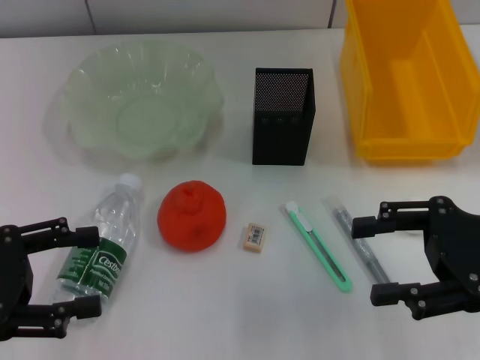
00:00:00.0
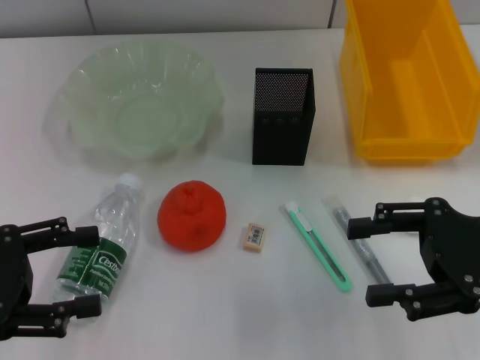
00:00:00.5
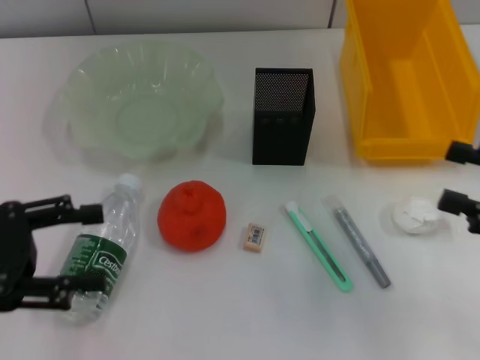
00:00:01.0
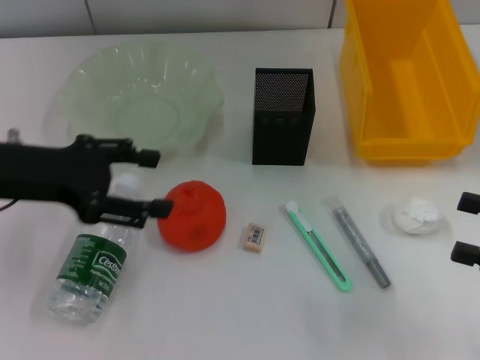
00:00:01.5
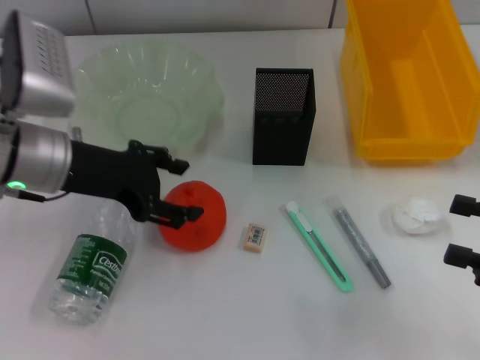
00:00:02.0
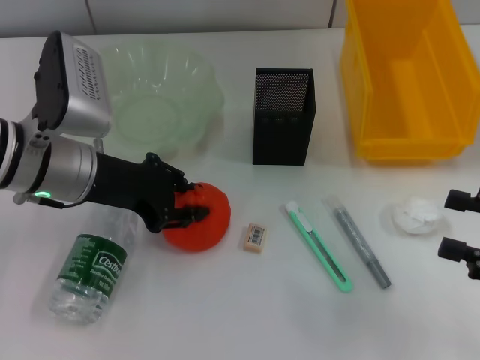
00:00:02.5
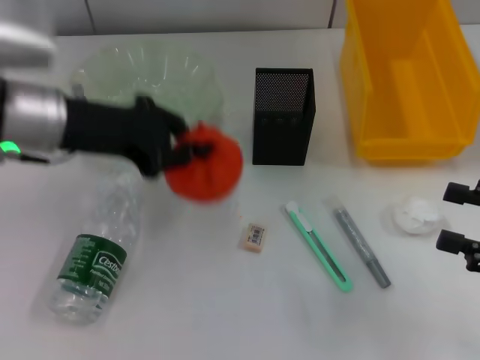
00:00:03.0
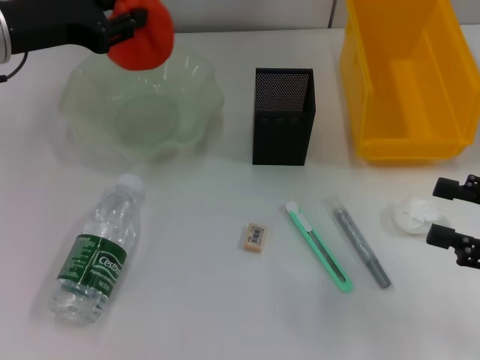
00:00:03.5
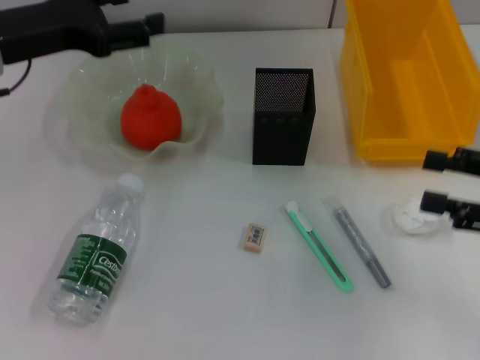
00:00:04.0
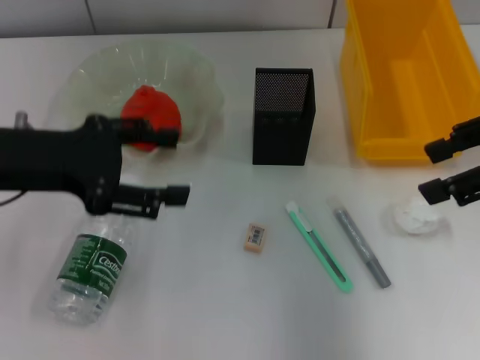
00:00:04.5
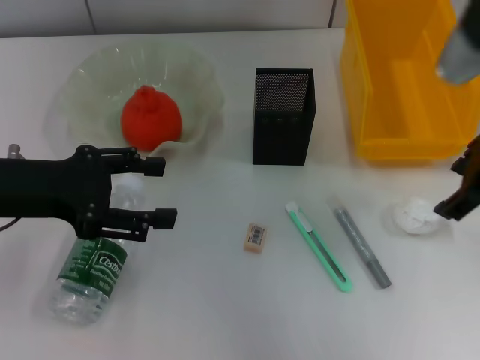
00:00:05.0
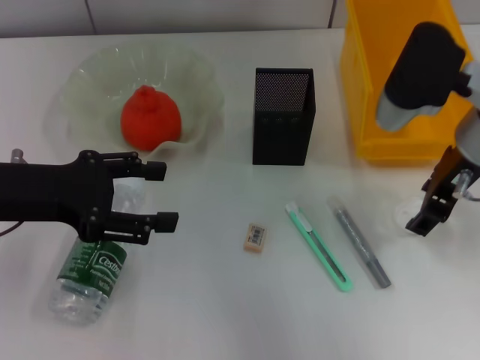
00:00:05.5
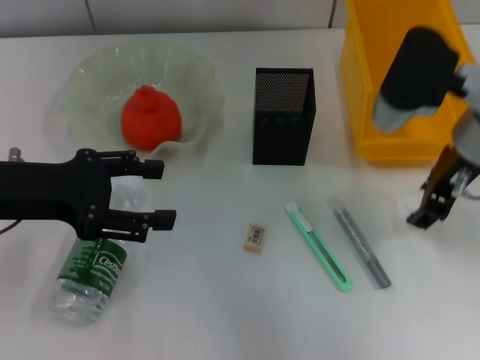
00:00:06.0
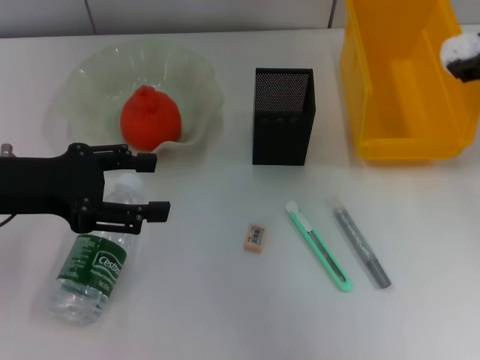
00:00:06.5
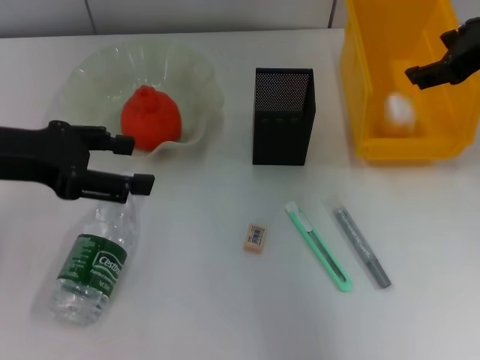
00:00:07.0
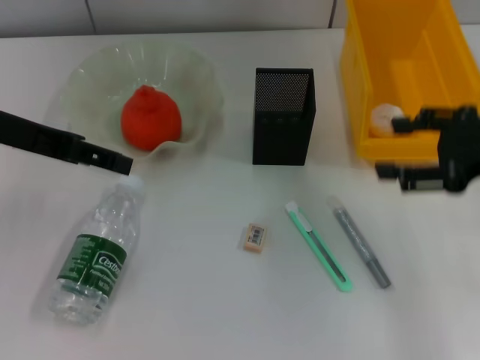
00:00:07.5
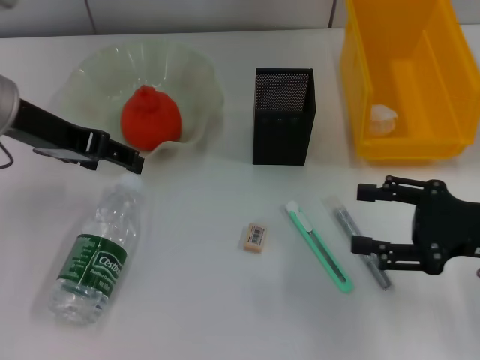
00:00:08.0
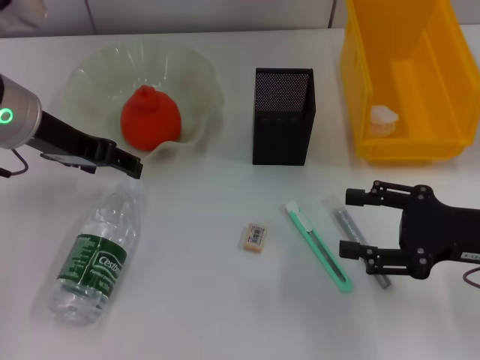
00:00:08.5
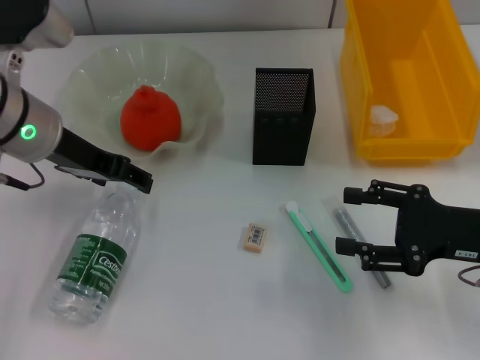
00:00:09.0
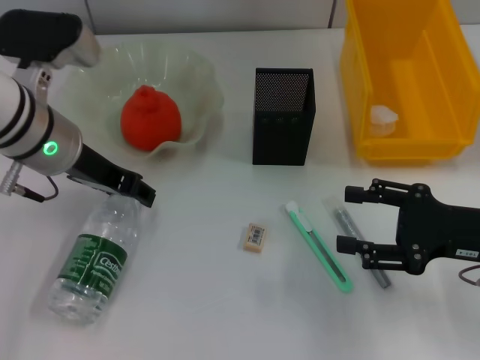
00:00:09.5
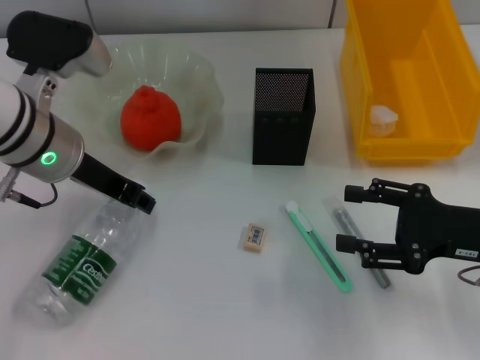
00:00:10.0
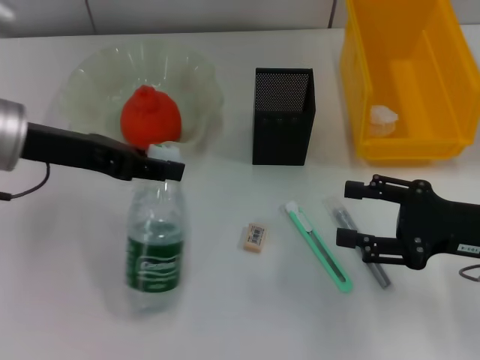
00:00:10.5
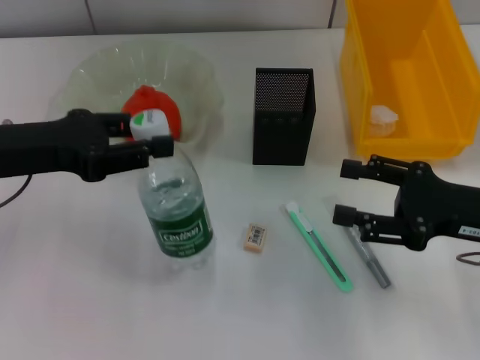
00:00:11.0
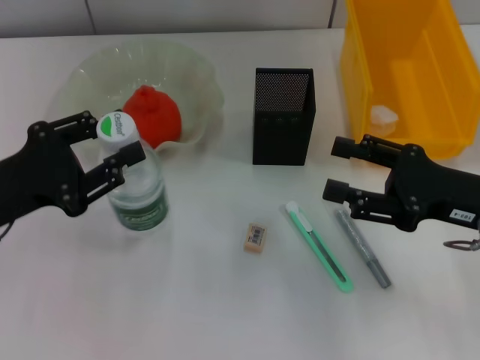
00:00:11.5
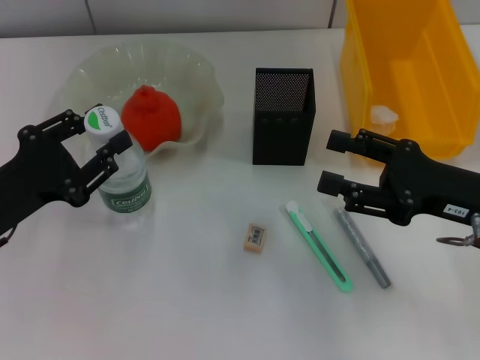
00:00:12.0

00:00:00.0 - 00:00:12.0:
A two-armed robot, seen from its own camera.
Step, 00:00:00.0 - 00:00:02.5: Grab the orange with the left hand.
Step, 00:00:03.0 - 00:00:04.0: Place the orange into the fruit bowl with the left hand.
Step, 00:00:04.5 - 00:00:05.5: Grab the paper ball with the right hand.
Step, 00:00:06.0 - 00:00:07.0: Place the paper ball into the trash can with the right hand.
Step, 00:00:07.5 - 00:00:09.5: Grab the water bottle with the left hand.
00:00:00.0 - 00:00:02.0: The right gripper moves to the right and backward, about 10 cm, while the left gripper goes some 15 cm forward and to the right.
00:00:02.0 - 00:00:04.0: The right gripper shifts by some 5 cm. The left gripper heads upward, covering about 5 cm, and closes and opens again.
00:00:04.0 - 00:00:06.0: The left gripper heads backward, covering about 10 cm; the right gripper goes approximately 20 cm to the left and forward.
00:00:06.0 - 00:00:08.0: The right gripper travels to the right, backward and downward by about 15 cm, while the left gripper heads forward and upward, covering about 10 cm.
00:00:08.0 - 00:00:10.0: The left gripper moves approximately 5 cm, and closes its fingers.
00:00:10.0 - 00:00:12.0: The left gripper is displaced backward, to the left and downward by roughly 15 cm.

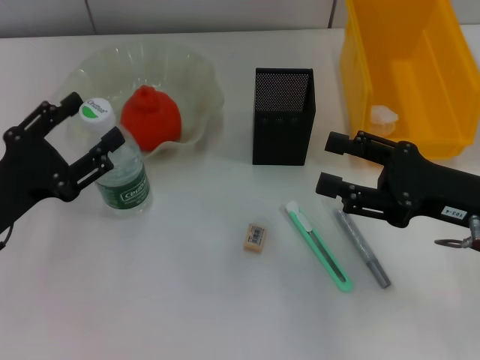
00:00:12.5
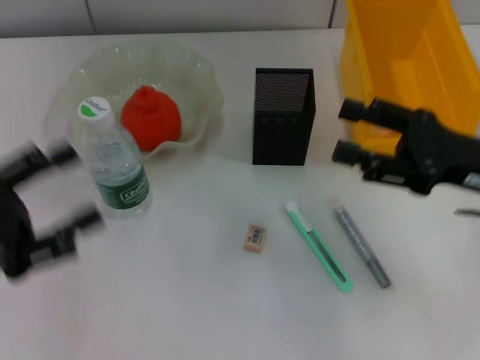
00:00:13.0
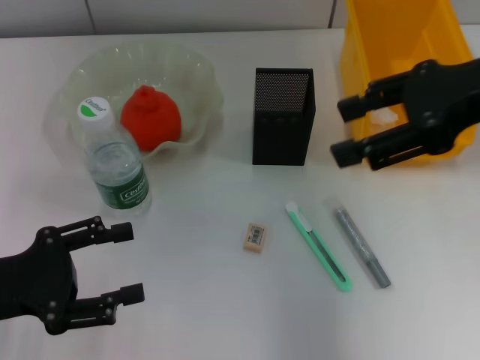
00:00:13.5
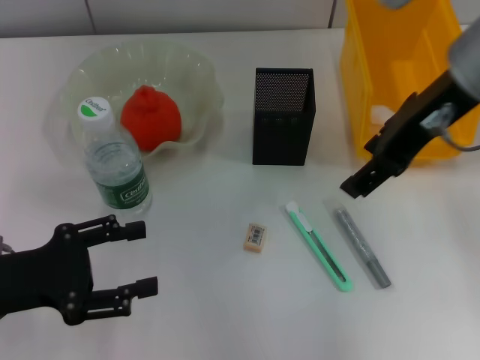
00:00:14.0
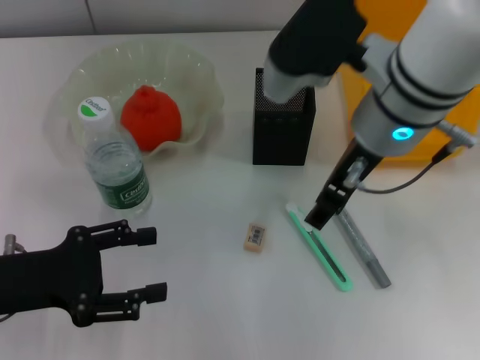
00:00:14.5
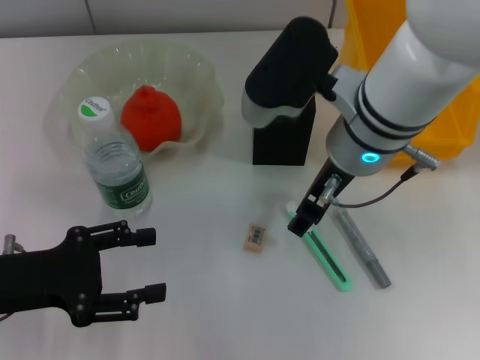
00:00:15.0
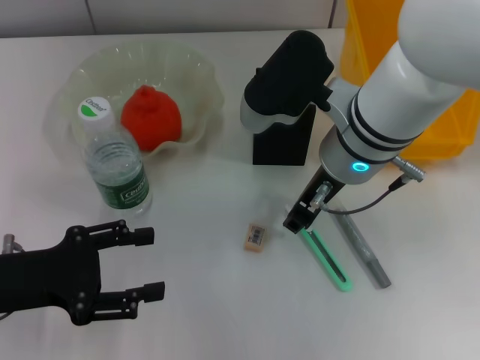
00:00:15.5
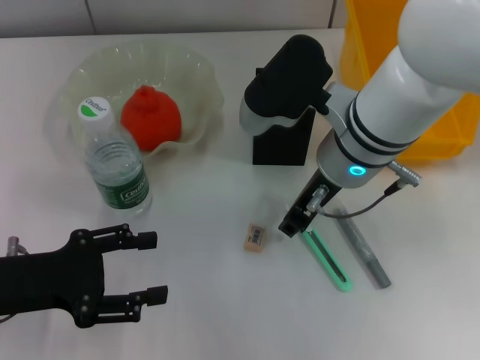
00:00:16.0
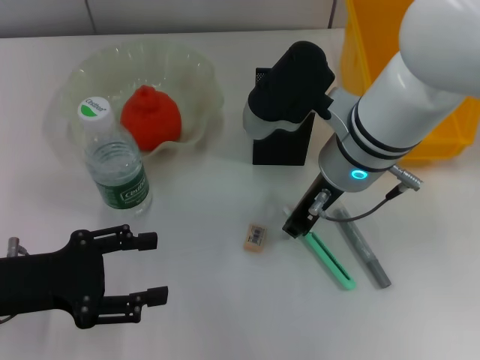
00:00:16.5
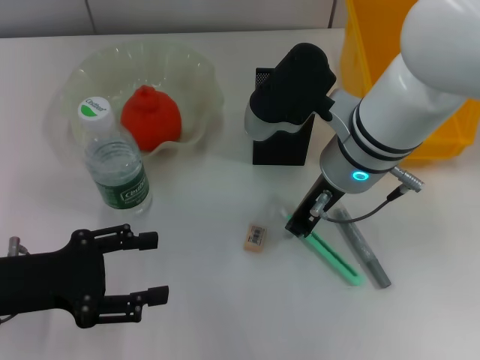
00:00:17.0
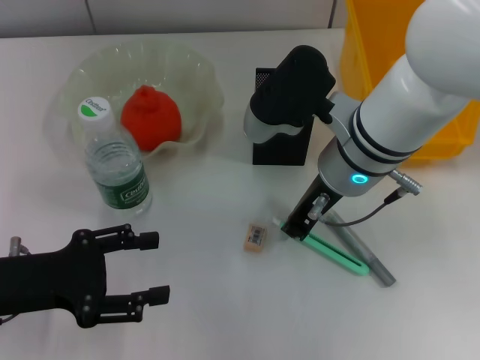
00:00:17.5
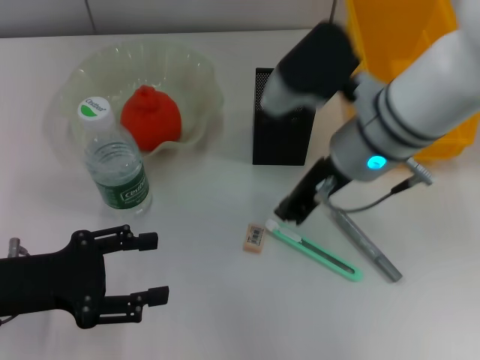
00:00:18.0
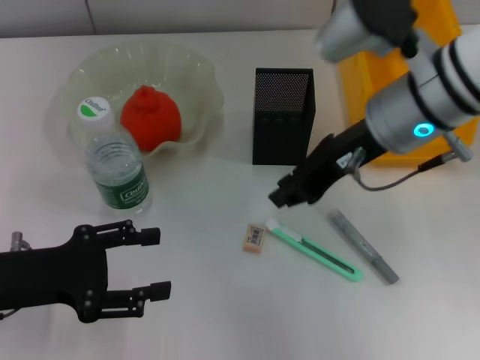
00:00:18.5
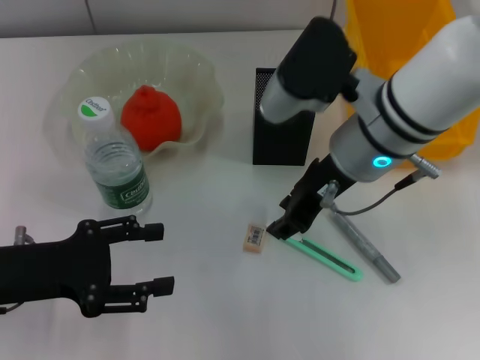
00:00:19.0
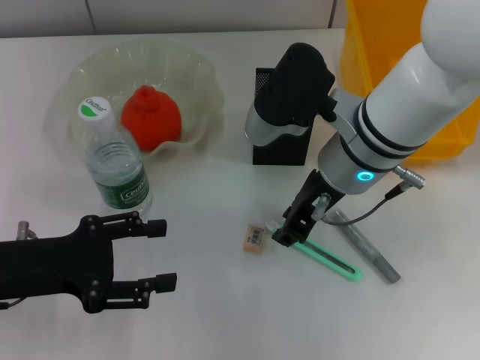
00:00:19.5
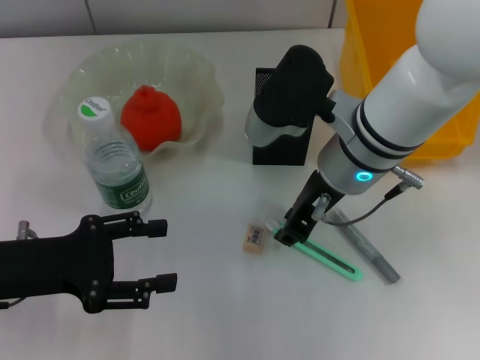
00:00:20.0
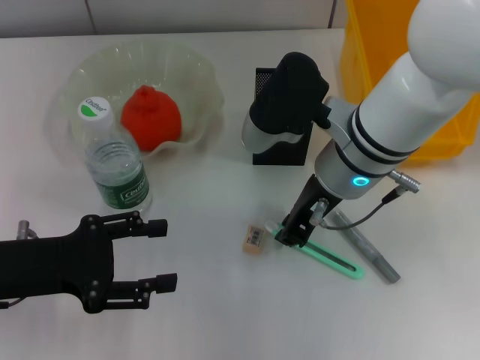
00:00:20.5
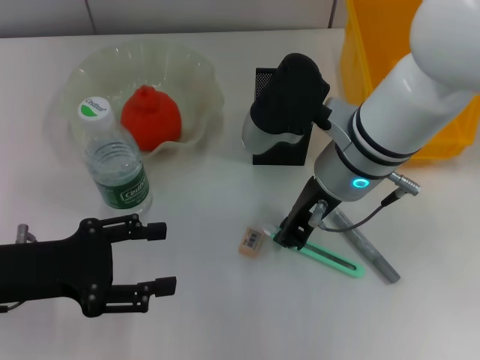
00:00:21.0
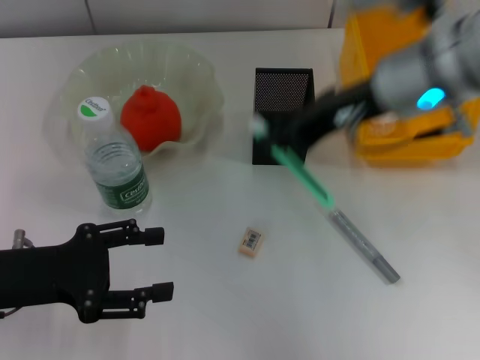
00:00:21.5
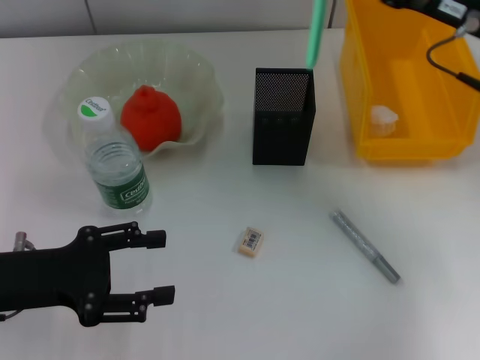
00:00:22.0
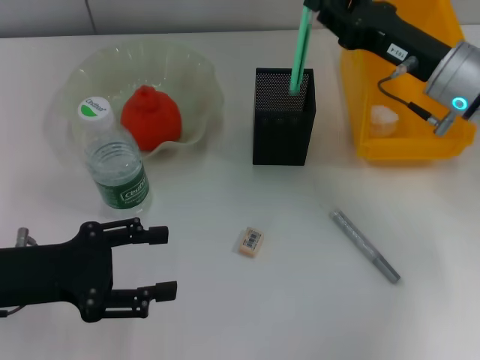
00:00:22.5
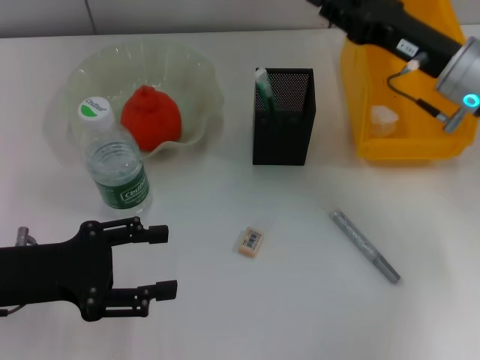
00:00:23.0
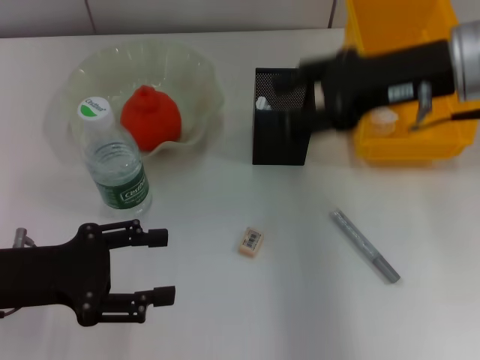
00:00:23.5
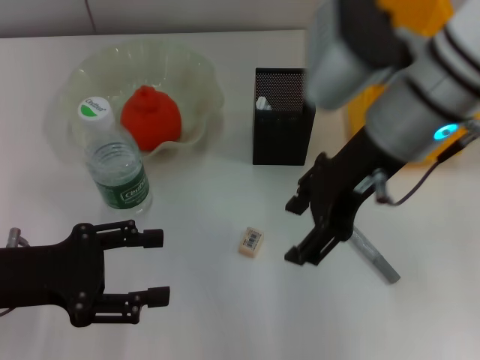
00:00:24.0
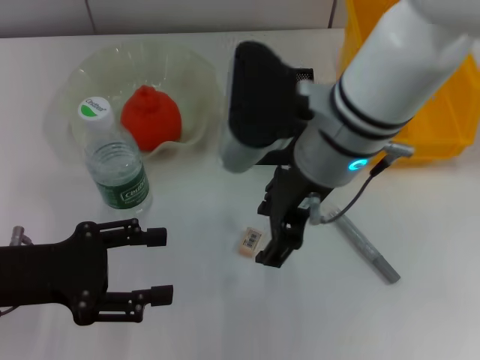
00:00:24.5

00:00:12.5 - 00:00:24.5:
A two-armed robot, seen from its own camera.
Step, 00:00:13.5 - 00:00:20.5: Grab the blue utility knife with the right hand.
Step, 00:00:21.0 - 00:00:23.0: Place the blue utility knife into the pen holder with the right hand.
00:00:12.5 - 00:00:14.5: The right gripper travels to the left, upward and forward by some 20 cm; the left gripper opens its fingers.
00:00:14.5 - 00:00:16.5: The right gripper shifts roughly 5 cm downward, and closes.
00:00:16.5 - 00:00:18.5: The right gripper changes place by about 5 cm, and closes up.
00:00:18.5 - 00:00:20.5: The right gripper moves roughly 5 cm, and opens, then closes once more.
00:00:20.5 - 00:00:22.5: The right gripper goes some 15 cm to the right.
00:00:22.5 - 00:00:24.5: The right gripper is displaced to the left by some 15 cm, and opens up.

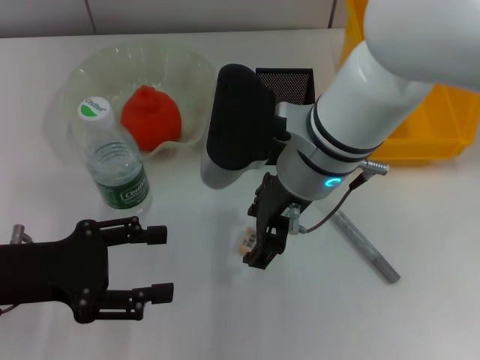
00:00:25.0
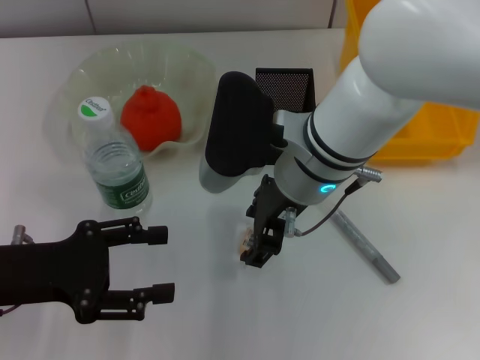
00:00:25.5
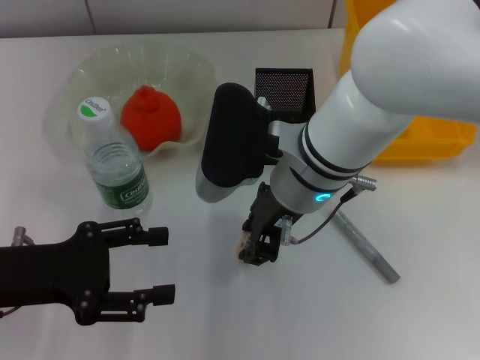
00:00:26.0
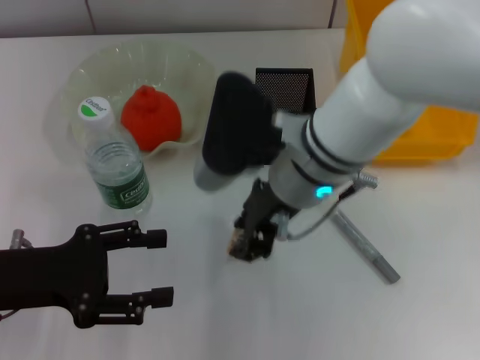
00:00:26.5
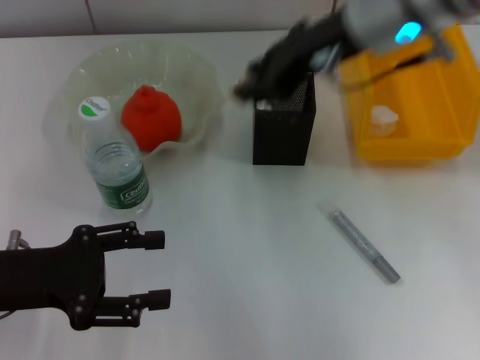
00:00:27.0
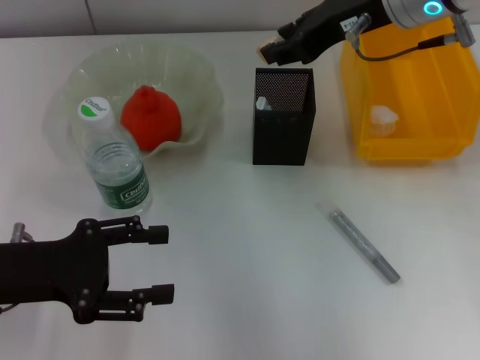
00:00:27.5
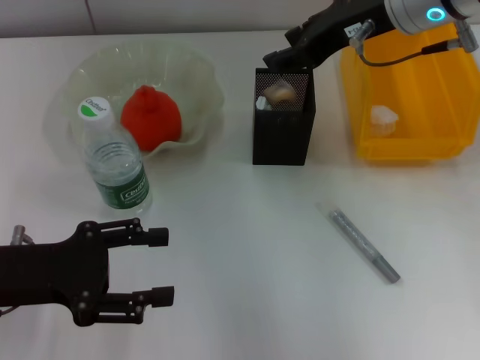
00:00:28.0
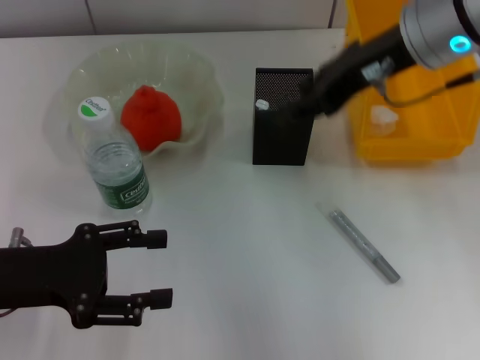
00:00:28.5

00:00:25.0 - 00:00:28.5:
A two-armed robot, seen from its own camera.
Step, 00:00:26.5 - 00:00:28.0: Put the eraser into the pen holder with the right hand.
00:00:25.0 - 00:00:27.0: The right gripper is displaced upward, to the right and forward by roughly 15 cm, and closes up.
00:00:27.0 - 00:00:28.5: The grippers stay close to where they were, moving slightly.
